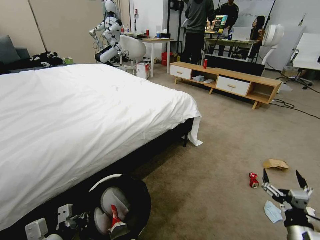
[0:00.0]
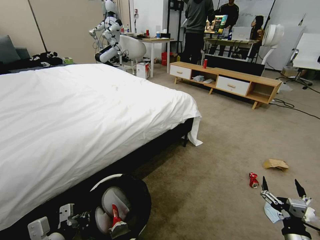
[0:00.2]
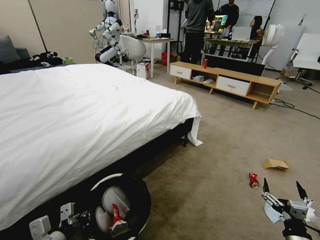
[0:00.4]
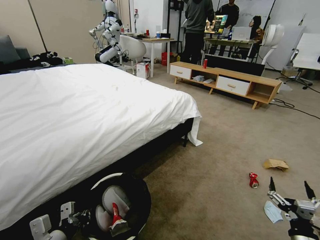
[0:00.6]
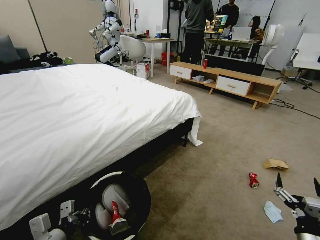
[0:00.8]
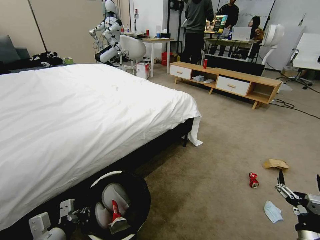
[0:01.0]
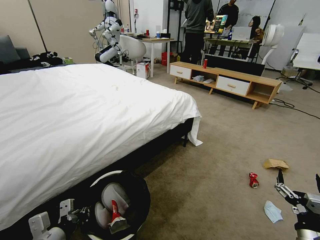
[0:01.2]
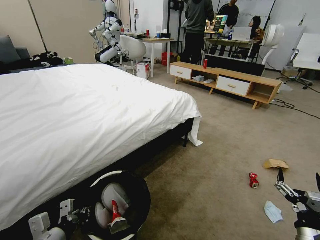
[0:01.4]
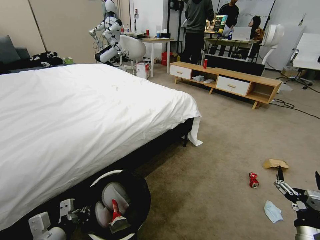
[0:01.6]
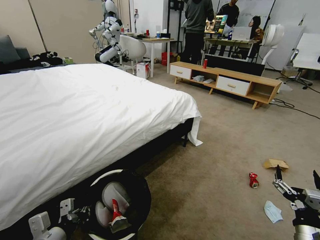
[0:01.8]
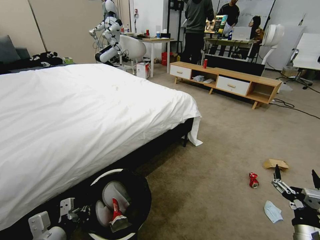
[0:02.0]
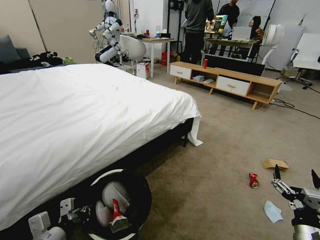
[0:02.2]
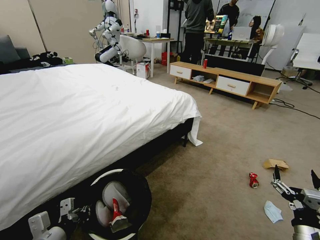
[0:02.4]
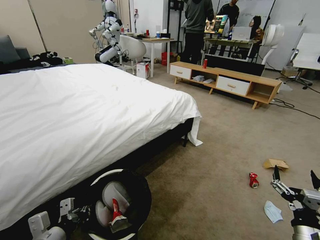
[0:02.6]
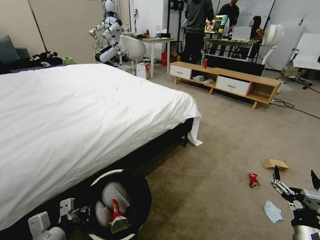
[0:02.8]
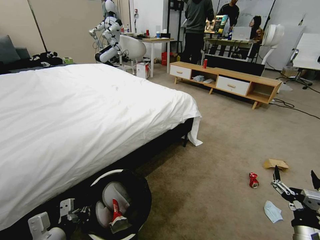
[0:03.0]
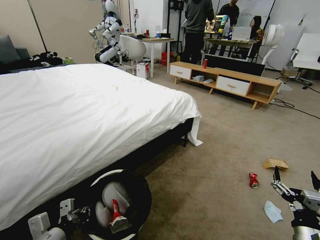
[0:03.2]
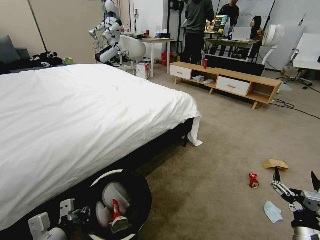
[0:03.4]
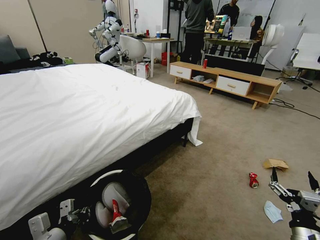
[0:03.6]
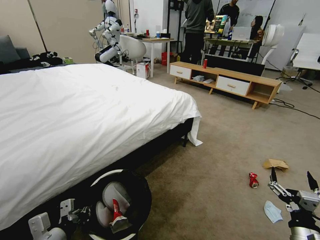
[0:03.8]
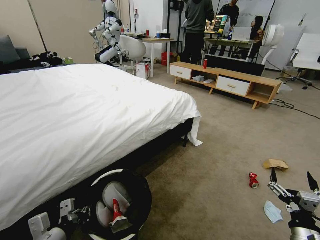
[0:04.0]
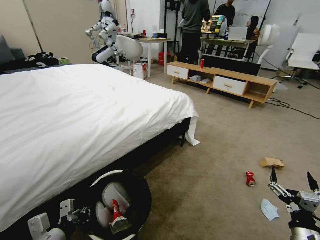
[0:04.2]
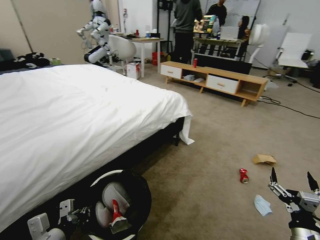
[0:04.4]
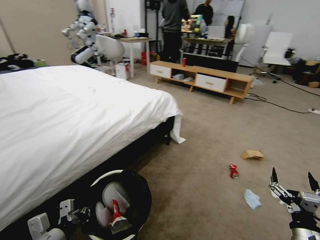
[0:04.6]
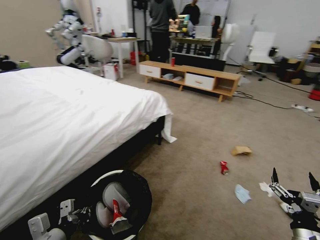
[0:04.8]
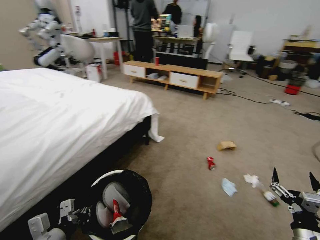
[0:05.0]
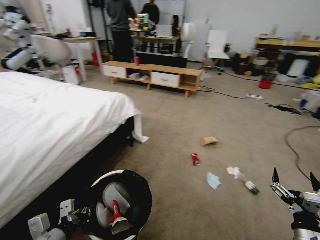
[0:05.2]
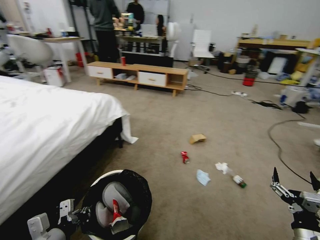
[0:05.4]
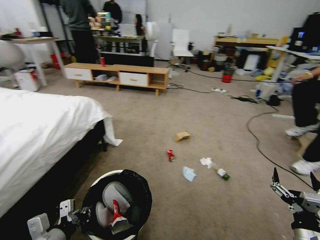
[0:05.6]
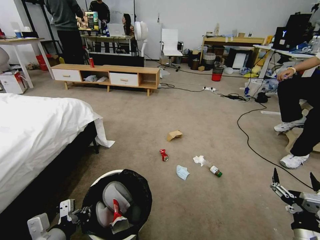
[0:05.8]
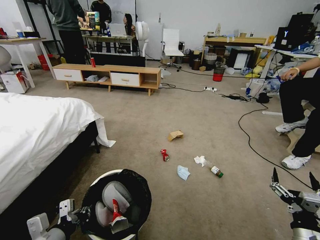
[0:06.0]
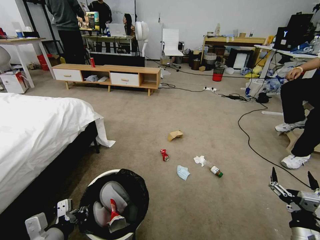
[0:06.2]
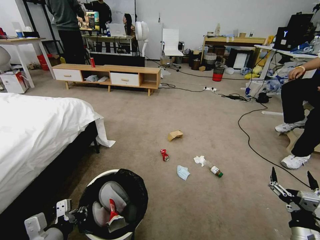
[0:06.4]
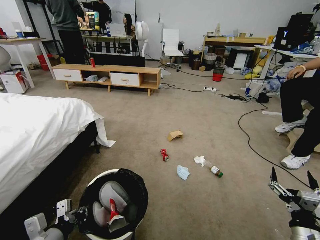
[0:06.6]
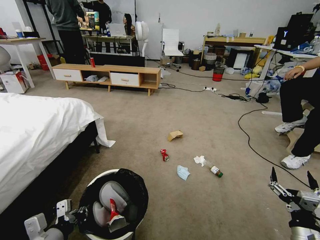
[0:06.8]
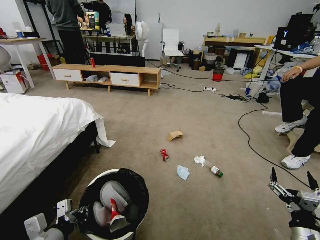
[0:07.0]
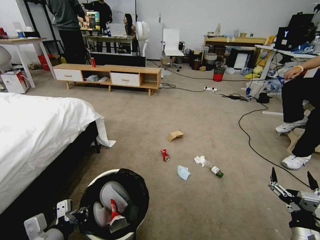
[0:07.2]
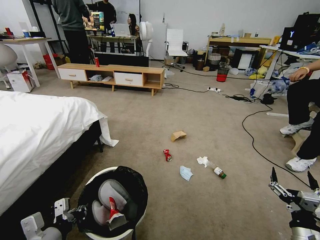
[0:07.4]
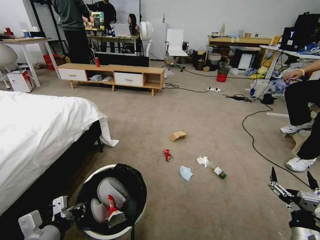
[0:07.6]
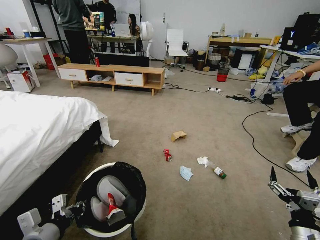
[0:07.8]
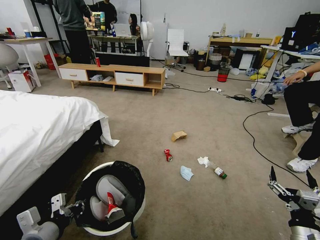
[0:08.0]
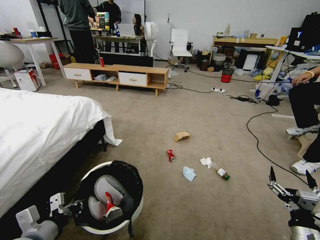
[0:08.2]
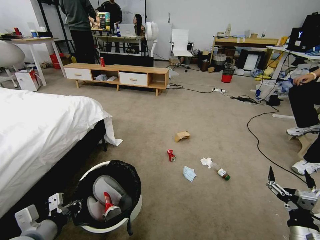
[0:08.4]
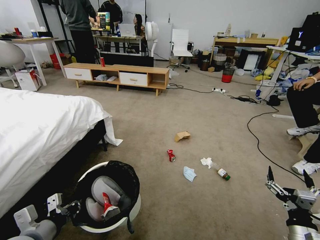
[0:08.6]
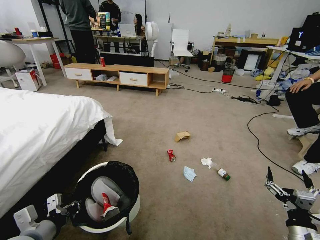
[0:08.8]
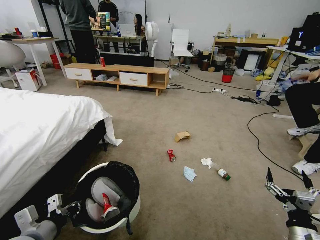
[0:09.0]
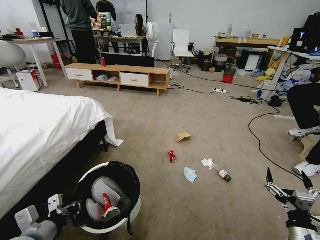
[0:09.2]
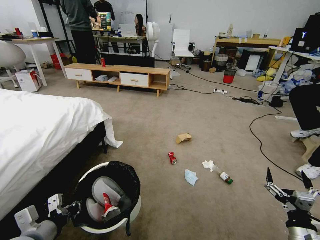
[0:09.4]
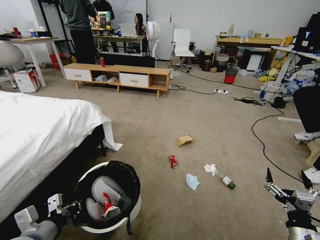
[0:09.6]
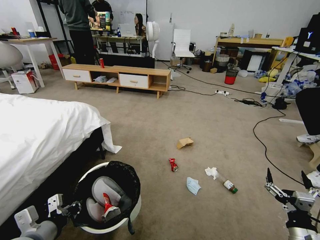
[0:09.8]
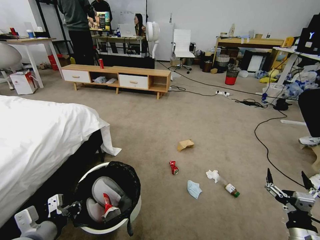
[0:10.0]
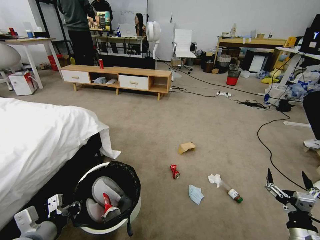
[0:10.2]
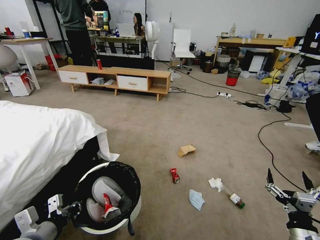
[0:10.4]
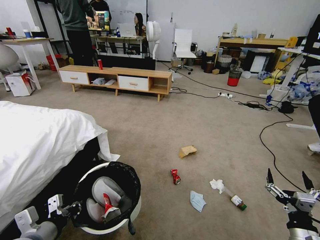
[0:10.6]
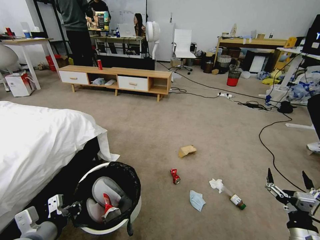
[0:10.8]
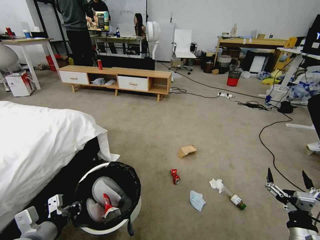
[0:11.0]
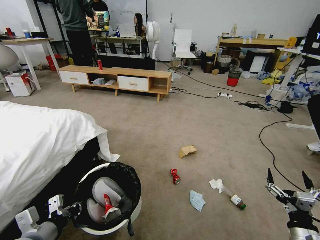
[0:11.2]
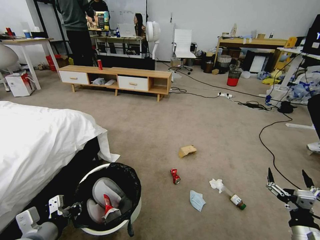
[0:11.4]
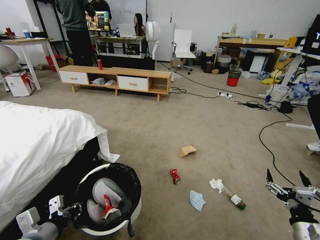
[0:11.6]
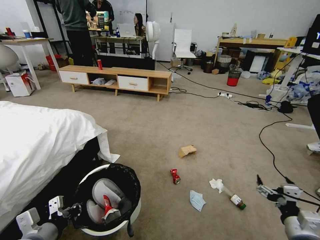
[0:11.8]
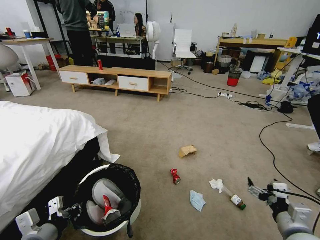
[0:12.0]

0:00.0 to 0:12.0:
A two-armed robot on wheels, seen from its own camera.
Task of the whole recording: Pick up the trash bin, then pick up the garbage from the floor and place it into the trash bin.
0:00.0 to 0:01.6: The grippers make only small movements.
0:01.6 to 0:03.0: The two grippers keep their place.
0:10.4 to 0:12.0: The right gripper is displaced upward by about 5 cm.

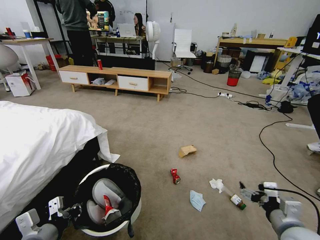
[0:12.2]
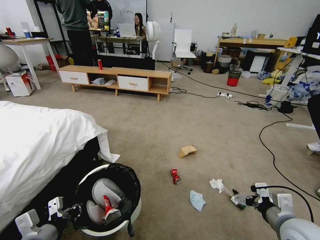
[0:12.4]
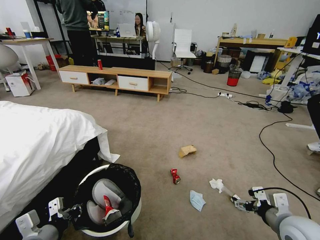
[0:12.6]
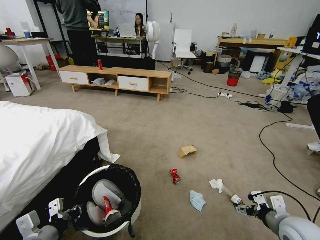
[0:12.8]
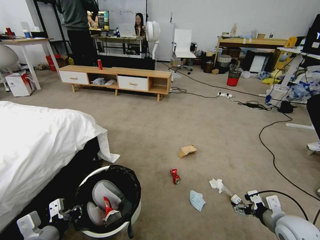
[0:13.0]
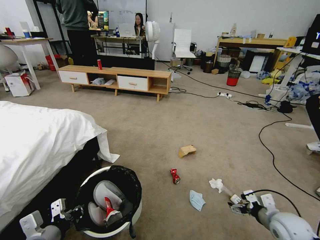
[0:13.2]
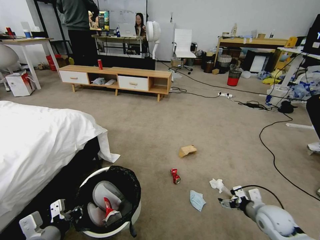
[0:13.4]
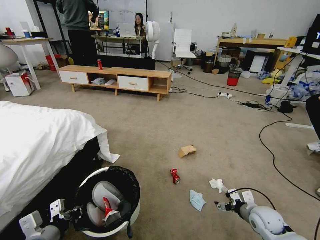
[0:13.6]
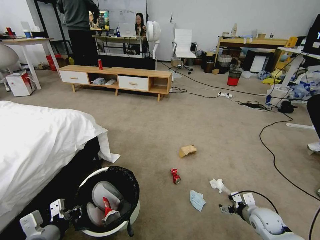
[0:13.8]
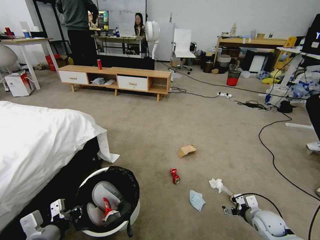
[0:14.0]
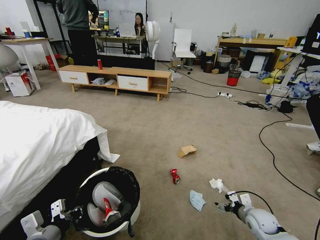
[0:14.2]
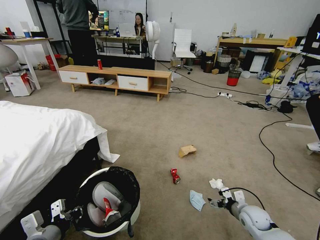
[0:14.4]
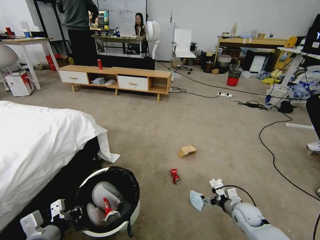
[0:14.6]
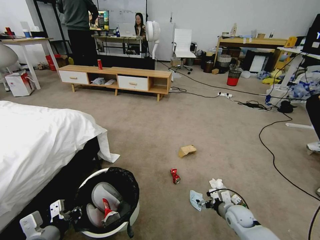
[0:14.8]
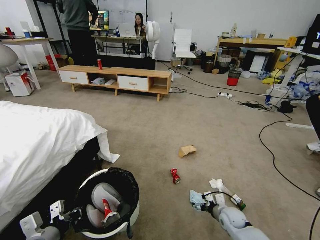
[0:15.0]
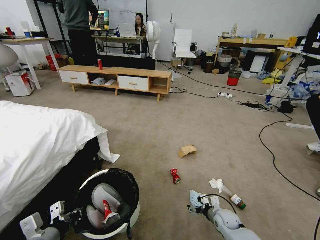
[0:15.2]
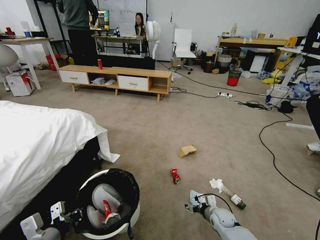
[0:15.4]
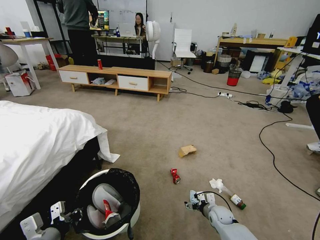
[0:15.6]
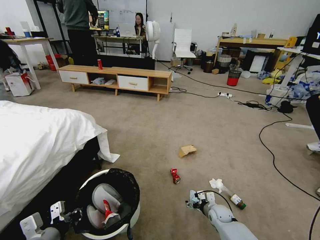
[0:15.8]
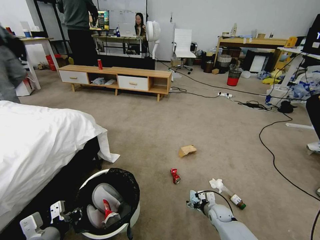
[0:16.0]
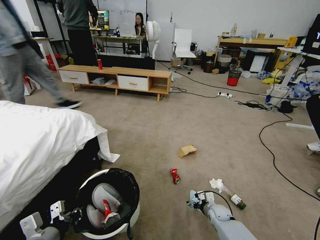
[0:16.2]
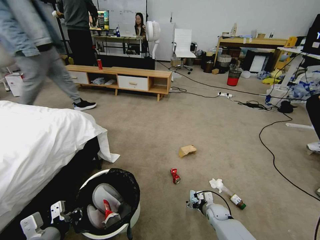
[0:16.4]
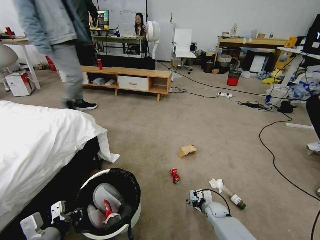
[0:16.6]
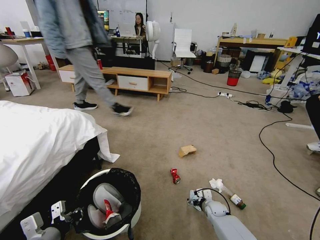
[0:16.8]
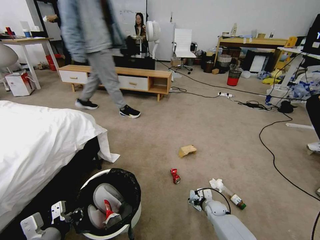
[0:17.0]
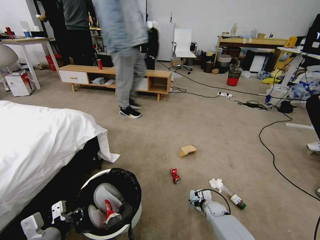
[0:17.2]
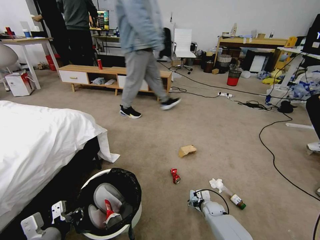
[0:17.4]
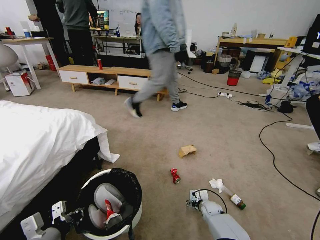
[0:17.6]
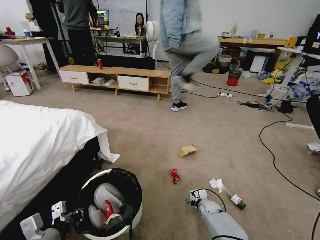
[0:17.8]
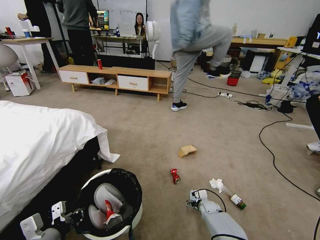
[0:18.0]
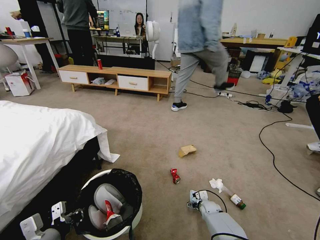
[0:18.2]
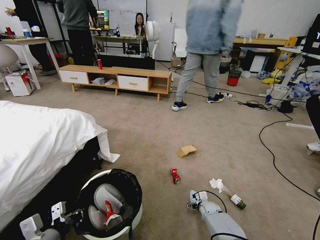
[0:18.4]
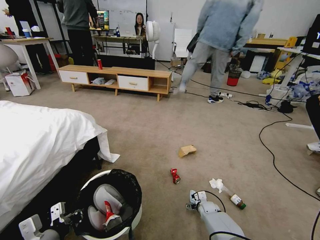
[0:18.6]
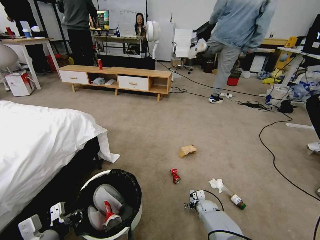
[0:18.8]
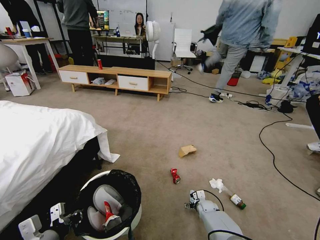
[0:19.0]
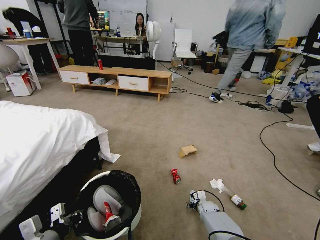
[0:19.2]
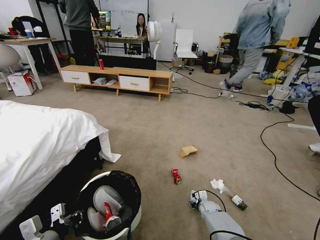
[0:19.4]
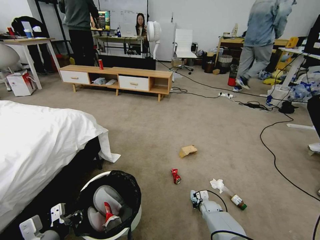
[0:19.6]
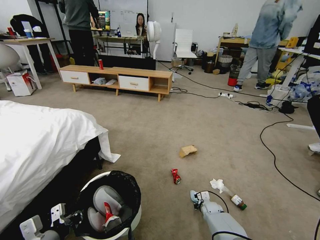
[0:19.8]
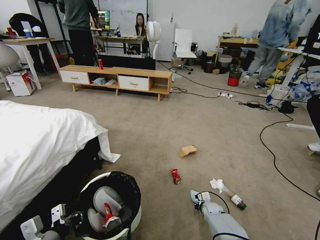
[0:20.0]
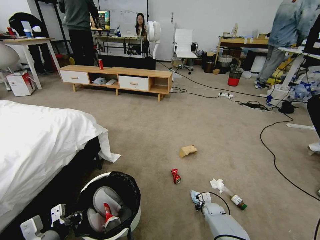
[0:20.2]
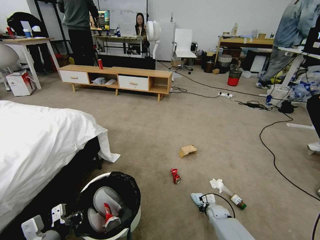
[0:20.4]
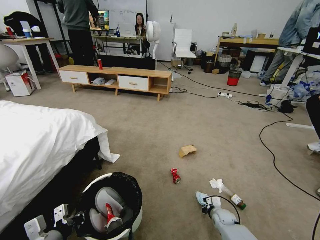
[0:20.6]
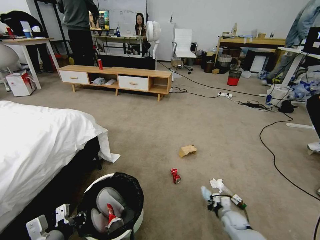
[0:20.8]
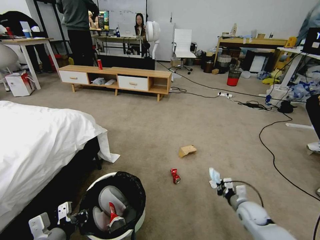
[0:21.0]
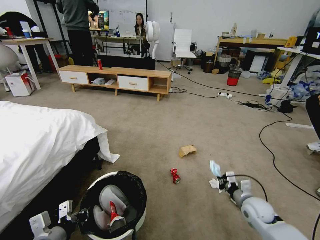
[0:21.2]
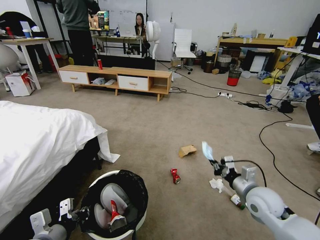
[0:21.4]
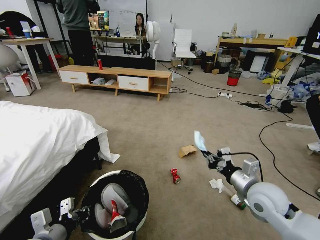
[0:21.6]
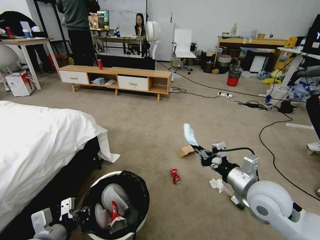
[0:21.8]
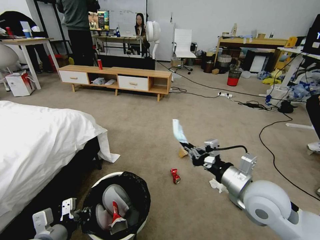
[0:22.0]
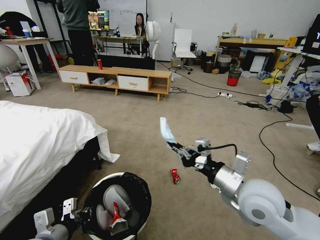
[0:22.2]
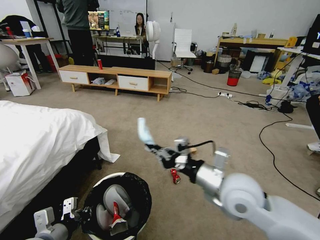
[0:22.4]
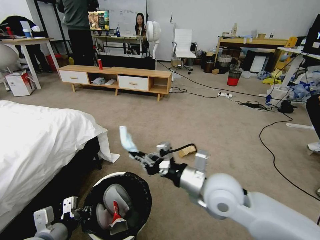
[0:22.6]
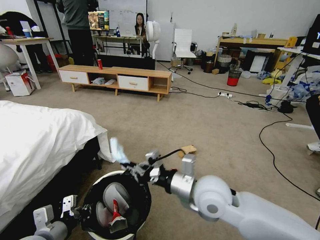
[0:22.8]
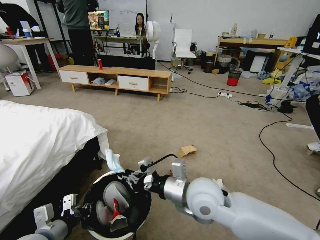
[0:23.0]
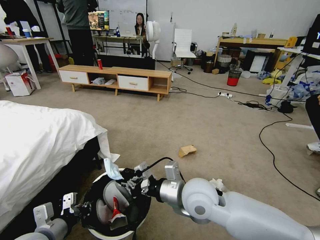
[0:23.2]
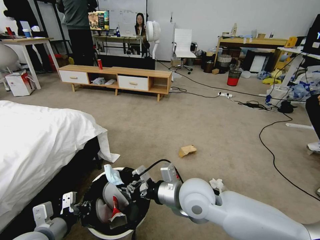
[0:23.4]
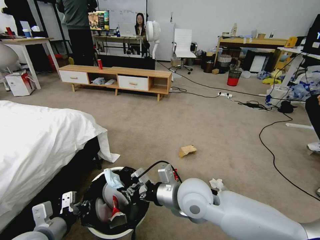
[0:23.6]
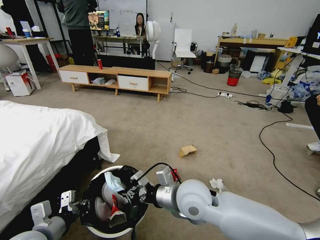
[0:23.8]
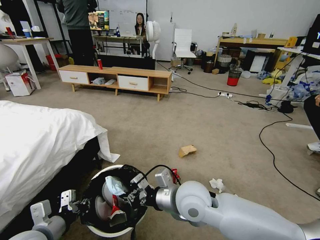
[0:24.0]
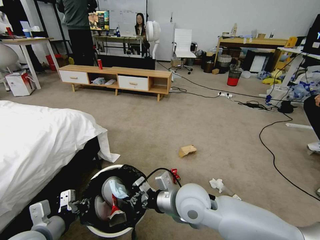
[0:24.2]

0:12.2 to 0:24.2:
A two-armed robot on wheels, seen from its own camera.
Task of the whole recording: Pick up the trash bin, then pick up the garbage from the floor and place it into the trash bin.
0:12.2 to 0:13.8: The right gripper travels downward and forward by roughly 20 cm.
0:13.8 to 0:15.2: The right gripper is displaced to the left and downward by some 15 cm.
0:15.2 to 0:16.6: The right gripper shifts by some 5 cm.
0:16.6 to 0:18.2: The grippers move only a little.
0:18.2 to 0:19.8: The right gripper closes up.
0:19.8 to 0:21.2: The right gripper is displaced upward and to the right by some 25 cm.
0:21.2 to 0:22.6: The right gripper goes some 30 cm upward and to the left.
0:22.6 to 0:24.2: The right gripper heads to the left and downward, covering approximately 10 cm.
